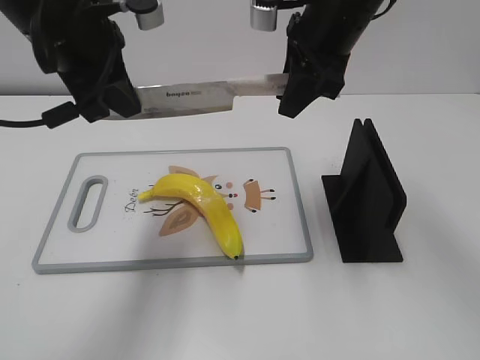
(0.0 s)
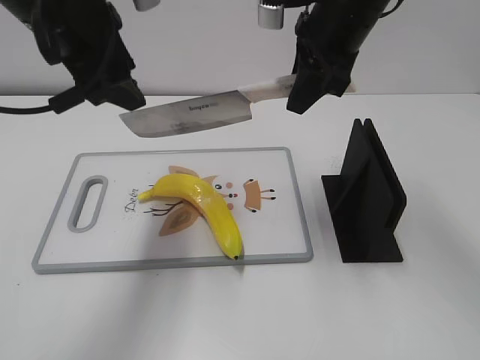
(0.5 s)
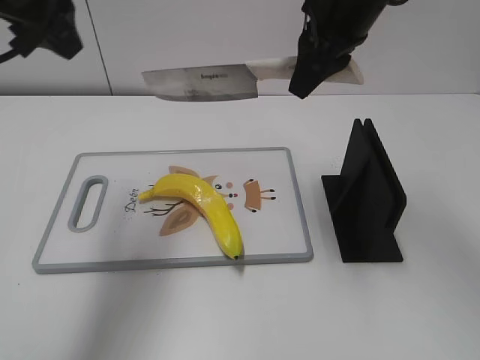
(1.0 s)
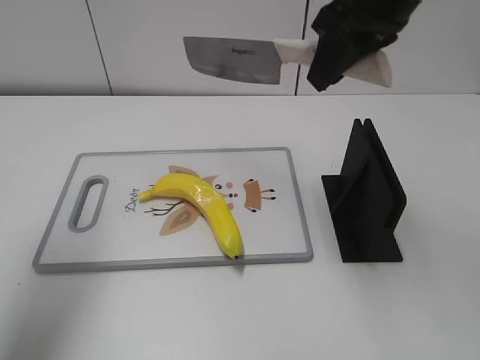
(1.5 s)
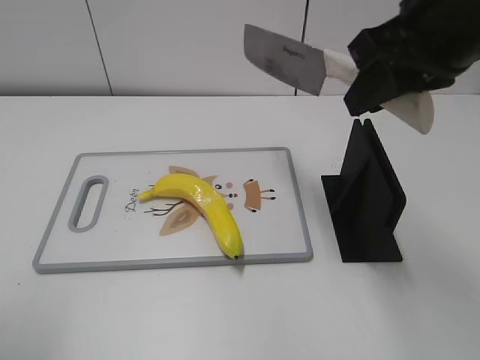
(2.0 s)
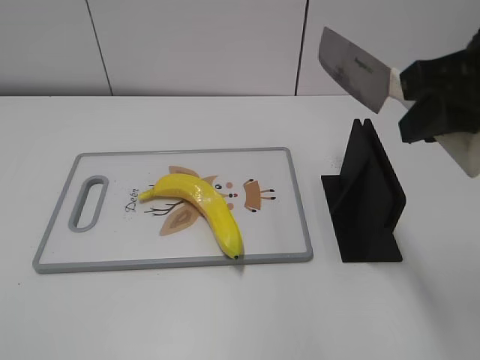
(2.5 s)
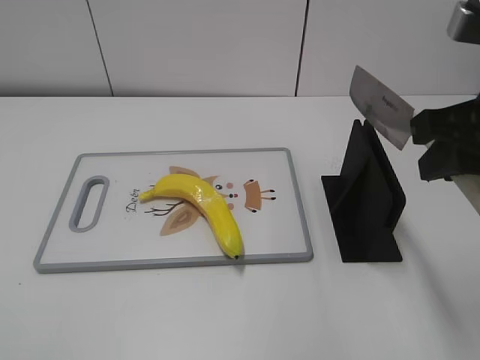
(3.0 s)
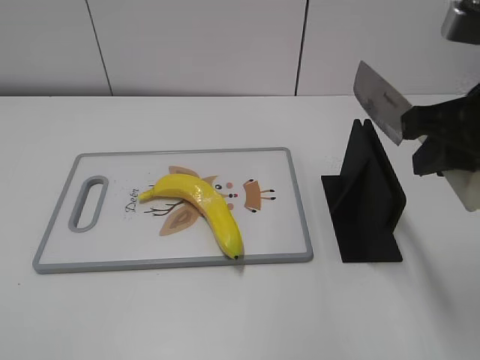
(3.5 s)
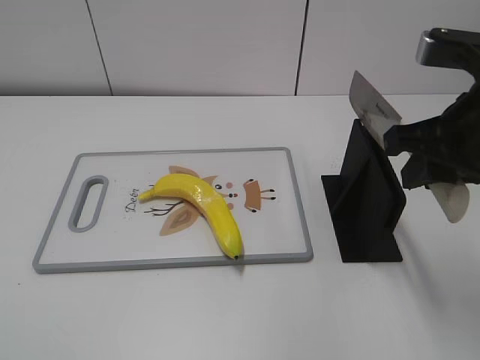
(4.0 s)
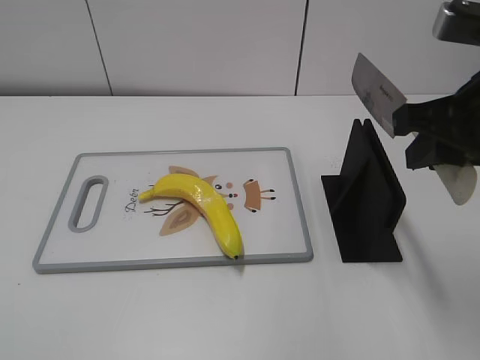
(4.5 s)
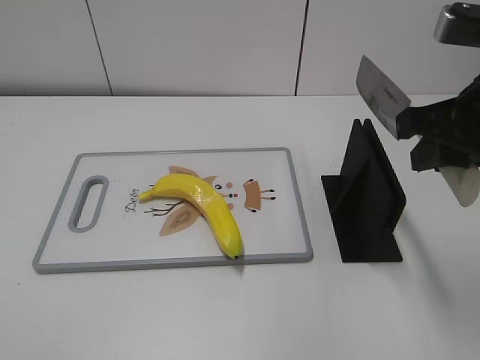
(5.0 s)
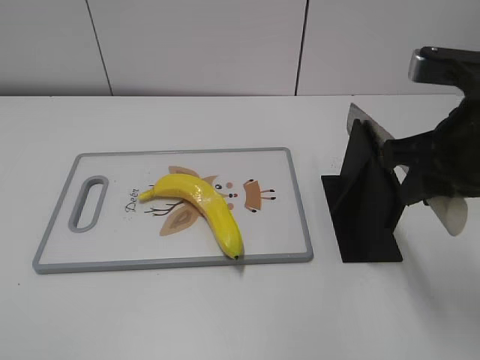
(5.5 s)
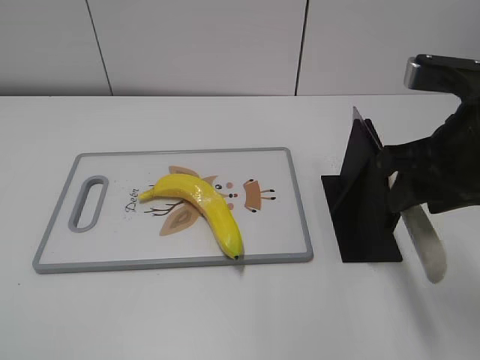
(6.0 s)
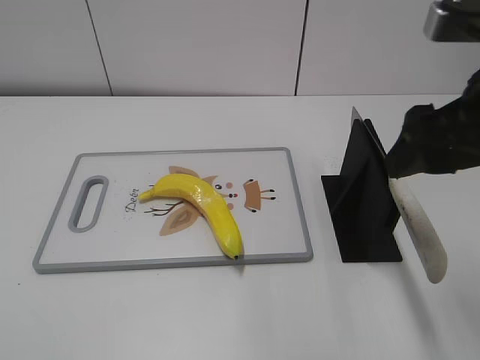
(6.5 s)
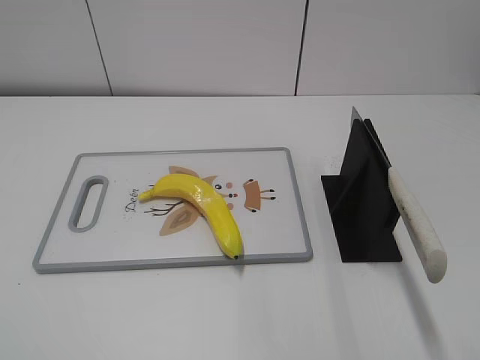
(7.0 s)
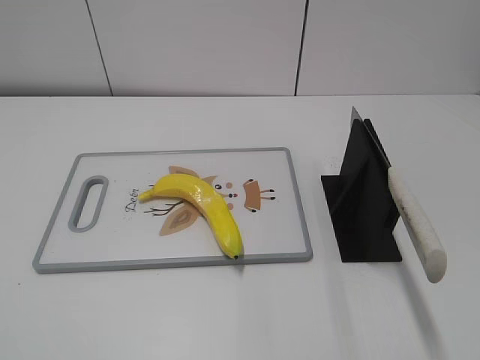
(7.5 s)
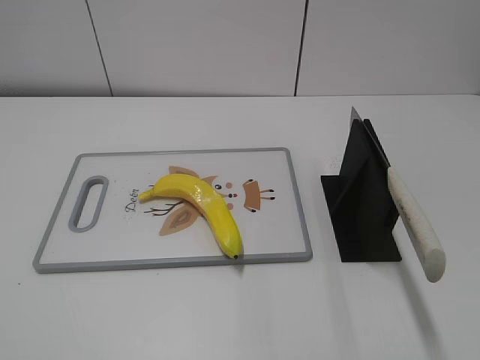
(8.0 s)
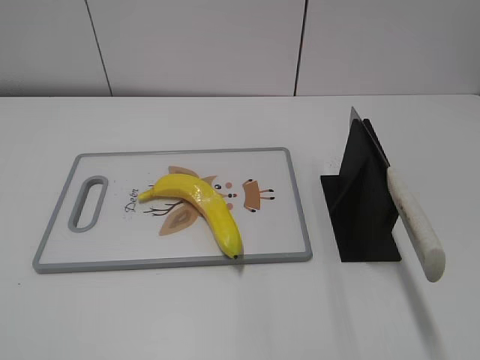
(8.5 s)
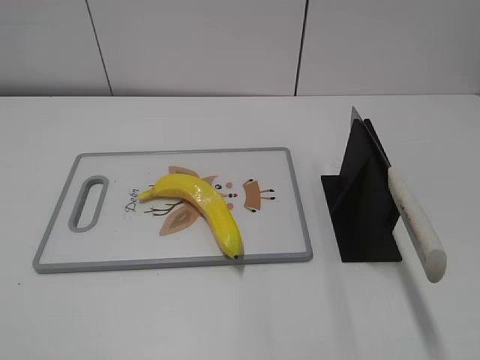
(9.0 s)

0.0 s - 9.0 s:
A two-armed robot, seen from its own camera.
Task of the whole recording: cut plastic banana.
Step, 0.5 s - 1.0 s: Cut the banana with your right hand.
Step, 1.5 s - 2.5 s: Secure the blade with your left hand.
Step, 3.0 s - 9.0 s: Place the knife on the storage rack with your right hand.
0.0 s - 2.0 s: The left gripper is displaced backward and to the left by roughly 25 cm, and opens its fingers, while the right gripper goes about 15 cm backward and to the right.
2.0 s - 4.5 s: The left gripper is displaced backward and downward by some 15 cm, while the right gripper is displaced downward by roughly 5 cm.
4.5 s - 7.0 s: The right gripper moves backward and upward, approximately 10 cm, and opens its fingers.

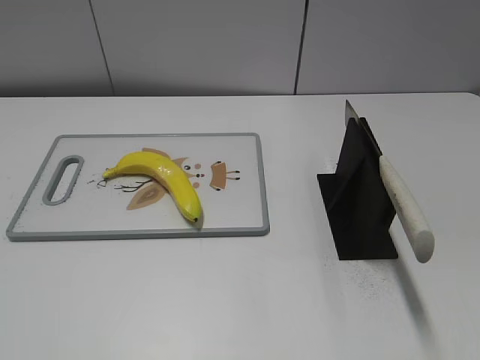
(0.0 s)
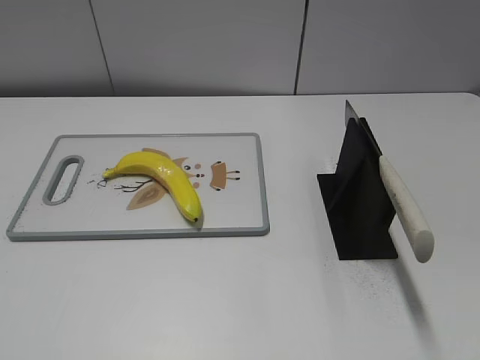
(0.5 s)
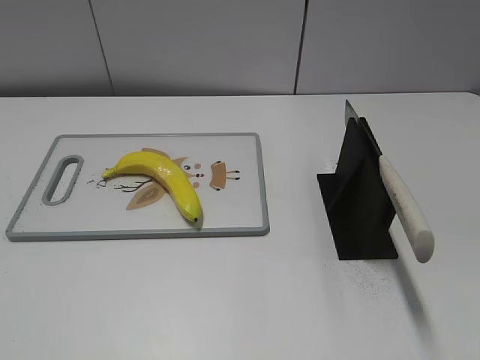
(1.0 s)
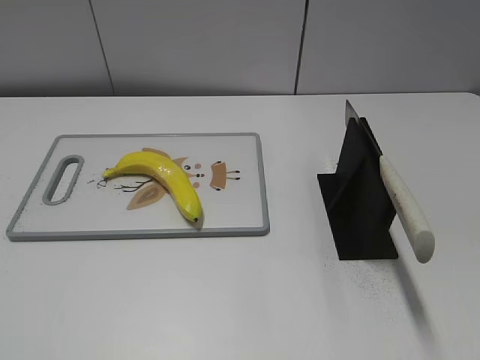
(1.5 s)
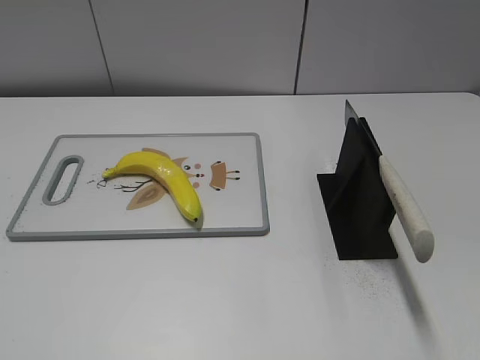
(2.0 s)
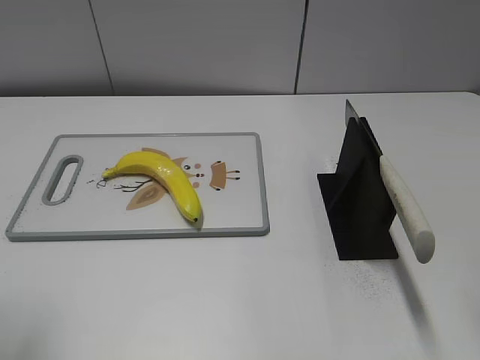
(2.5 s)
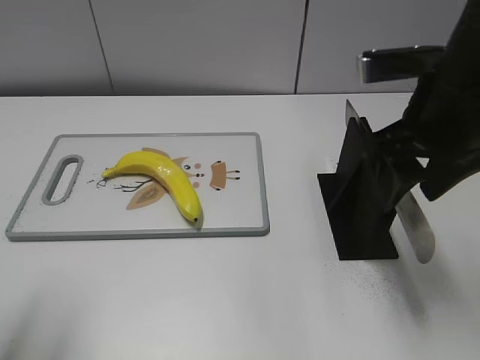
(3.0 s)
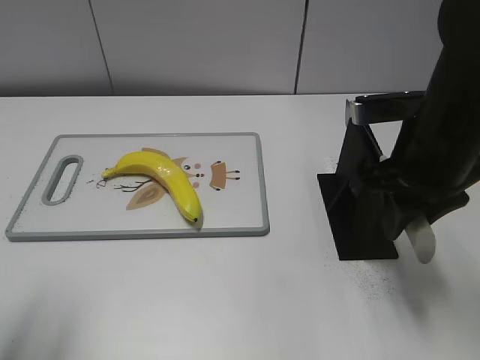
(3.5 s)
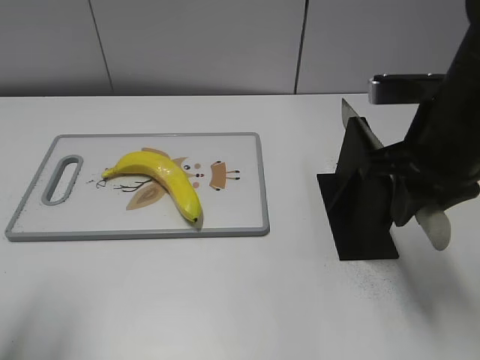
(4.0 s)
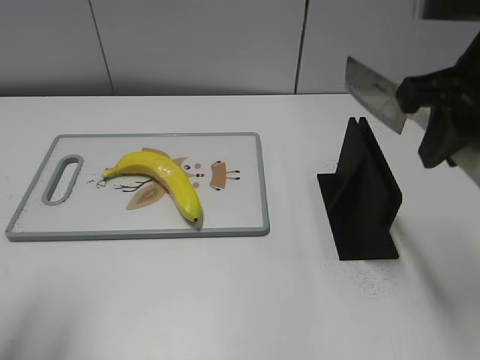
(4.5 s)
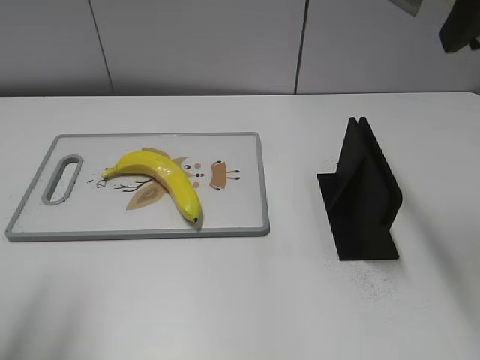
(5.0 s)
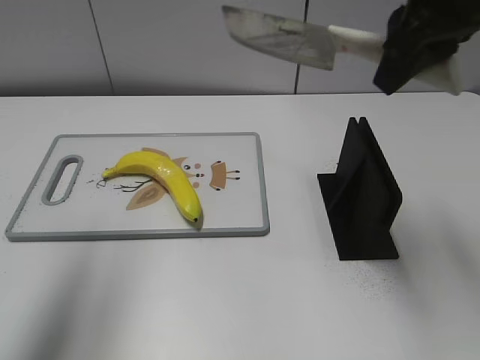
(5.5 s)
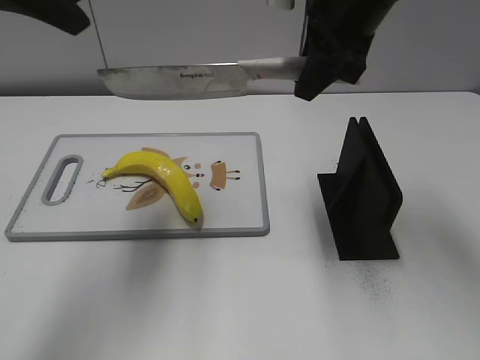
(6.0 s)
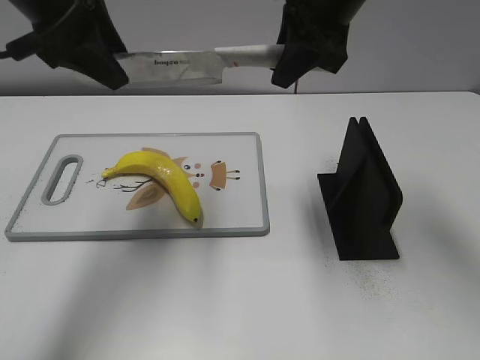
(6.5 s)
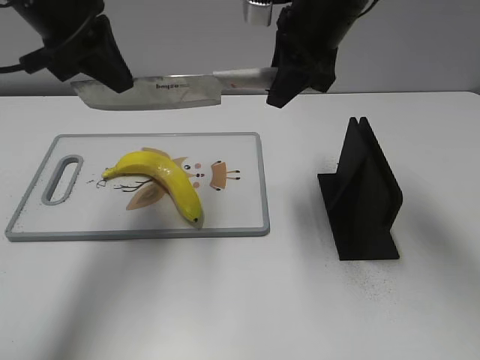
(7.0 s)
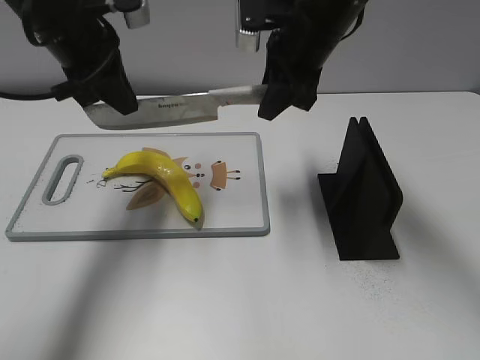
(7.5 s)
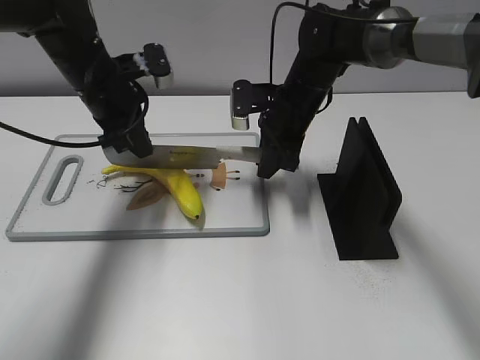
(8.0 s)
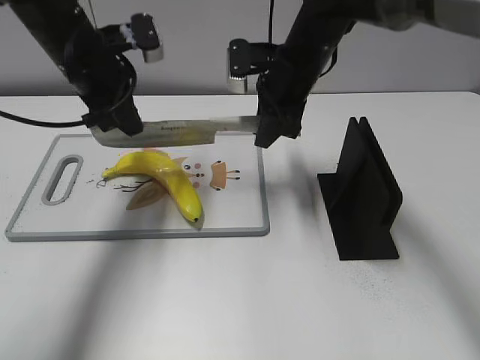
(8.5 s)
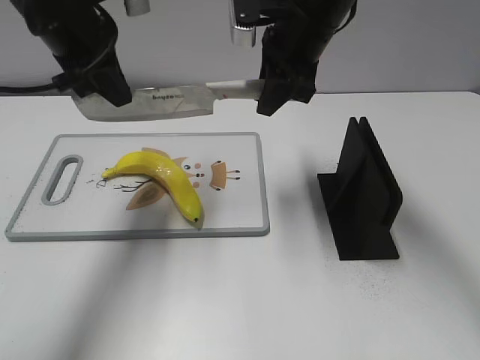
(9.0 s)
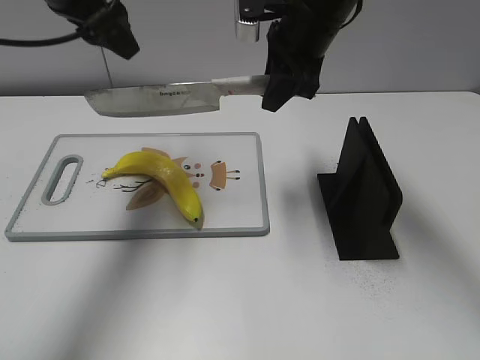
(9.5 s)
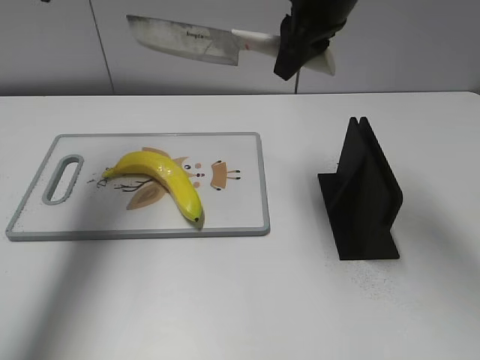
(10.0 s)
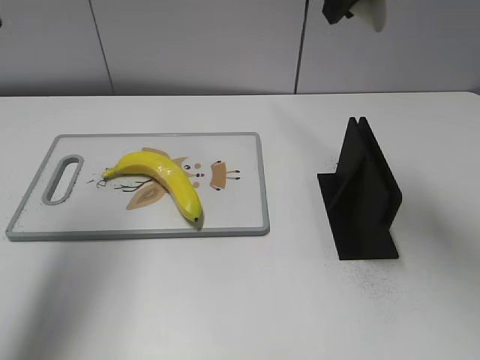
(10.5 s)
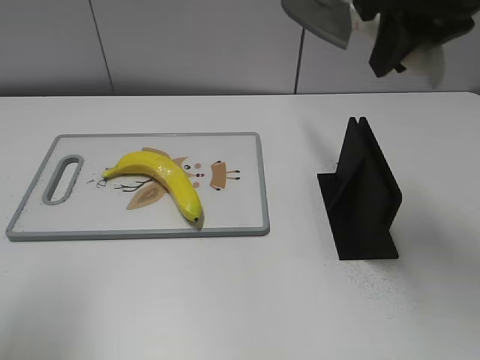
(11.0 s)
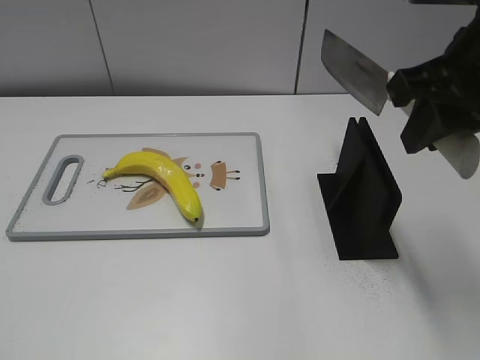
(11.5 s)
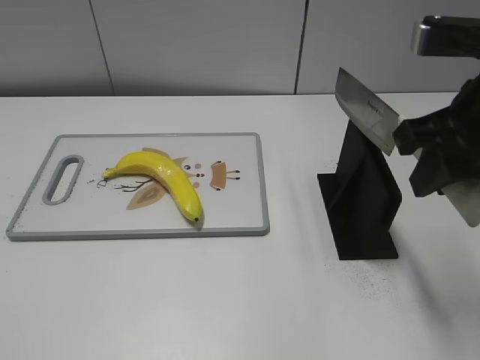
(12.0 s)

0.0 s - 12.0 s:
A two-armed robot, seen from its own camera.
Task of the whole recording: cut plastic banana.
Step, 0.0 s - 4.5 s: Grab the knife handle with your right hand.
Step, 5.0 s - 8.5 s: Hold the blade with your left hand.
Step, 9.0 s - 10.0 s: Cut the banana with your right hand.
Step, 10.5 s - 11.5 s: Lift the knife with your right hand.
2.0 s - 4.0 s: The right gripper shifts some 30 cm forward, to the left and downward, and closes its fingers; the left gripper travels forward by some 15 cm.
4.0 s - 6.0 s: The left gripper moves forward and upward, about 20 cm. Meanwhile the right gripper moves forward, upward and to the left, some 15 cm.
6.0 s - 8.0 s: The grippers both shift downward and forward by about 20 cm. The left gripper closes up.
8.0 s - 10.0 s: The two grippers go approximately 20 cm upward. The left gripper opens its fingers.
10.0 s - 12.0 s: The left gripper shifts roughly 40 cm backward. Meanwhile the right gripper is displaced backward and to the right by roughly 20 cm.

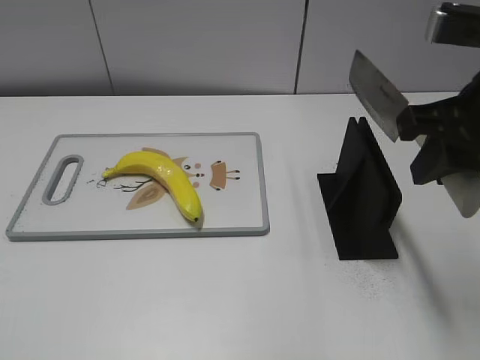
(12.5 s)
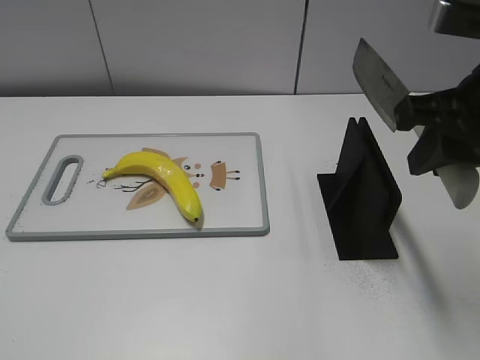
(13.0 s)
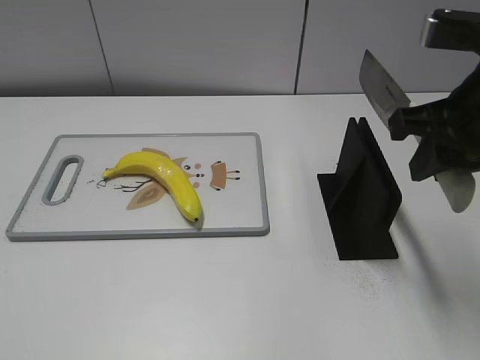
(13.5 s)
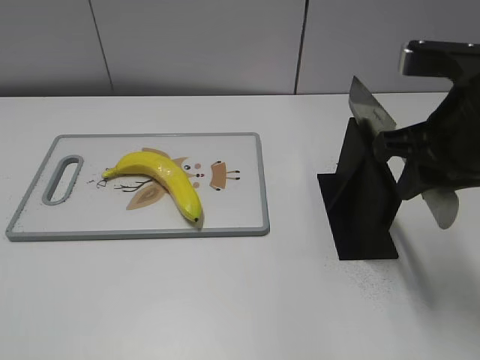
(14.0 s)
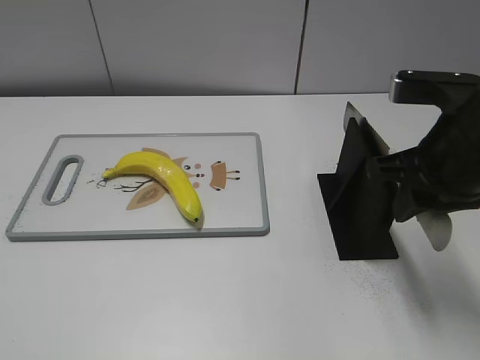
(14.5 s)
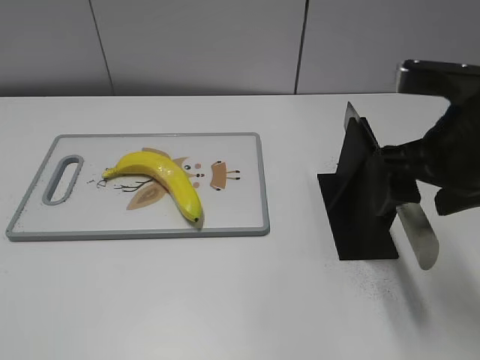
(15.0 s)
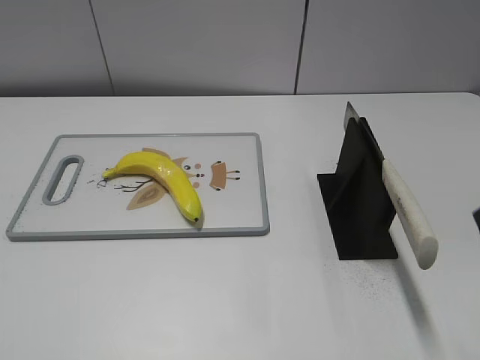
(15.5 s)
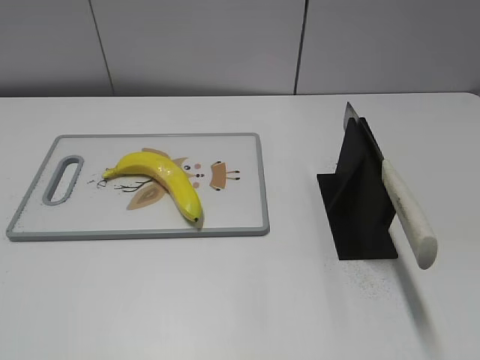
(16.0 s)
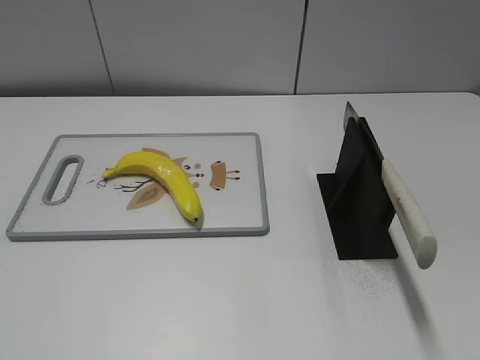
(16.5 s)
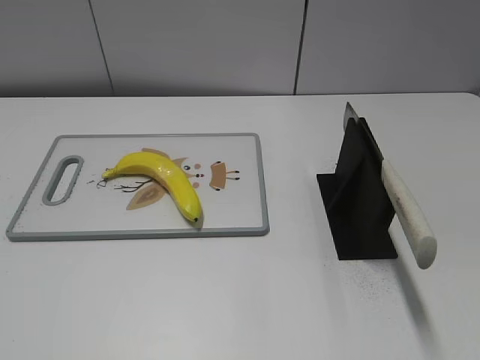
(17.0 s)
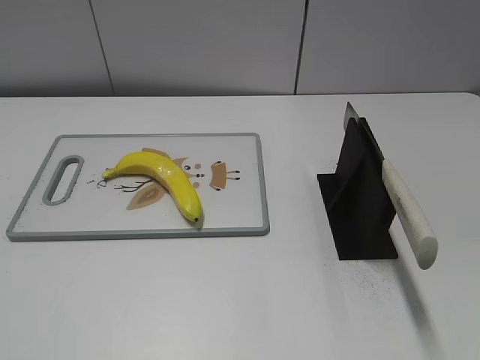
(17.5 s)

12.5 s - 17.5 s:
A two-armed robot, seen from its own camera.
Task of the whole recording: cut plastic banana.
Step, 12.5 s - 17.5 s: Place the knife on the storage rack with your right hand.
12.5 s - 15.0 s: The right gripper heads downward, covering roughly 5 cm, and opens up.
15.0 s - 17.5 s: The right gripper travels backward and to the right by roughly 25 cm.
